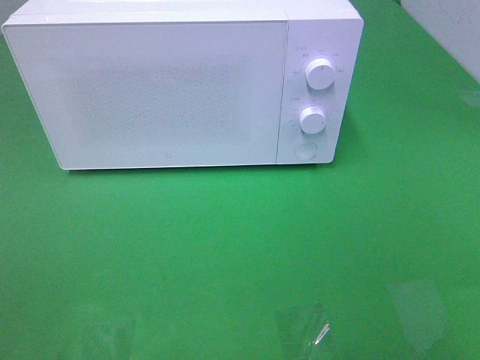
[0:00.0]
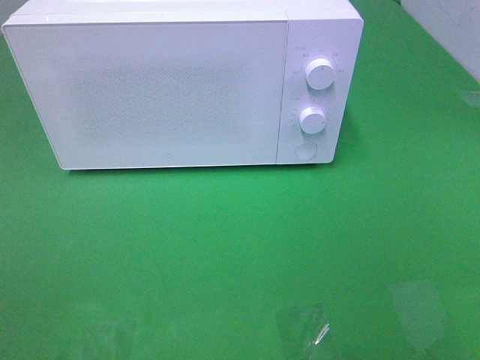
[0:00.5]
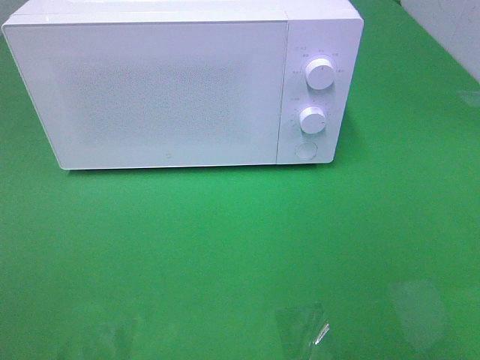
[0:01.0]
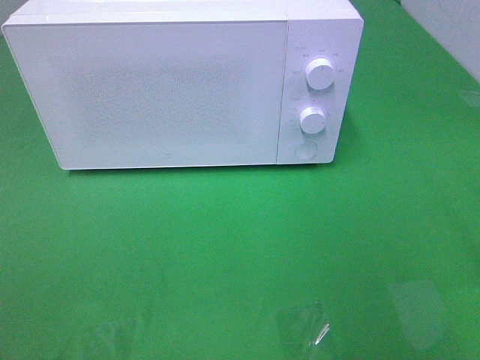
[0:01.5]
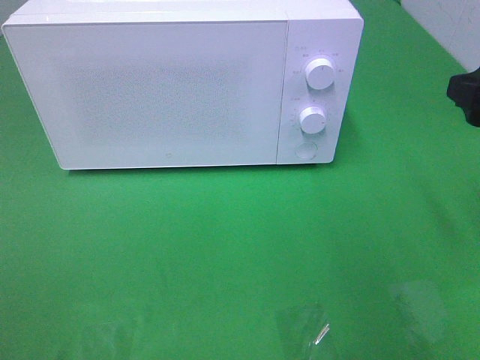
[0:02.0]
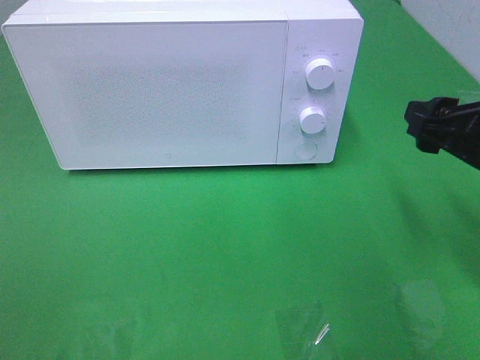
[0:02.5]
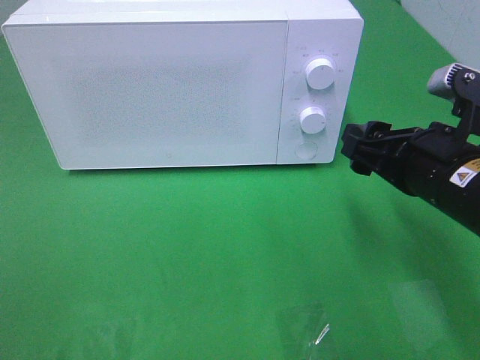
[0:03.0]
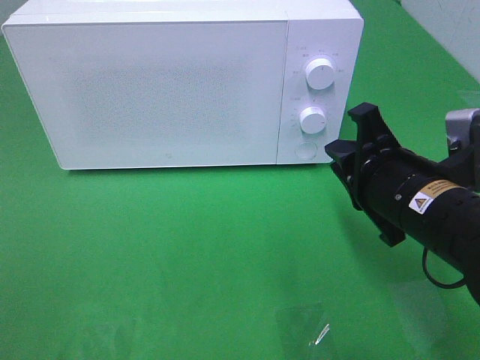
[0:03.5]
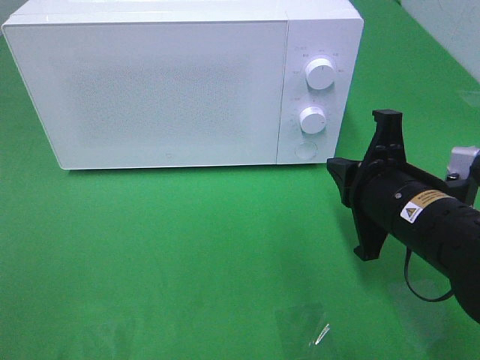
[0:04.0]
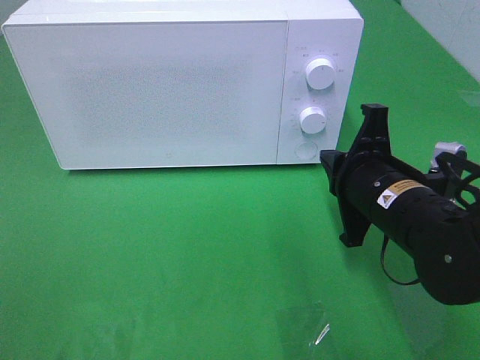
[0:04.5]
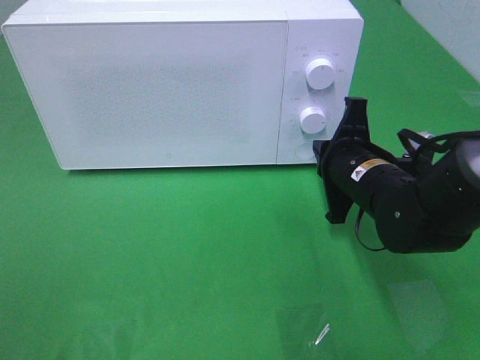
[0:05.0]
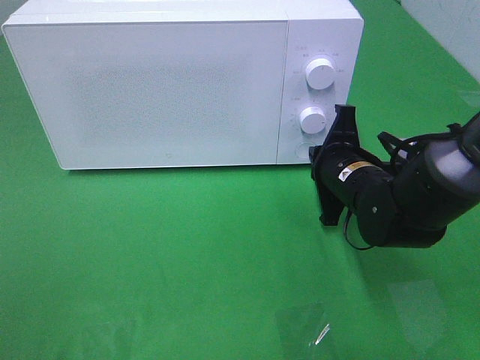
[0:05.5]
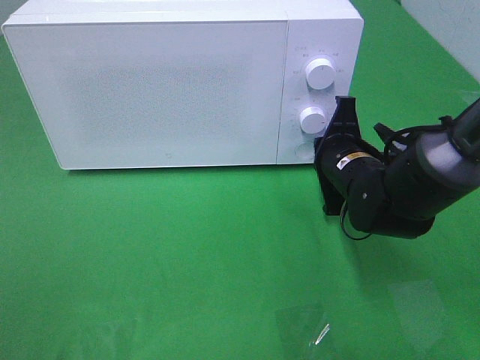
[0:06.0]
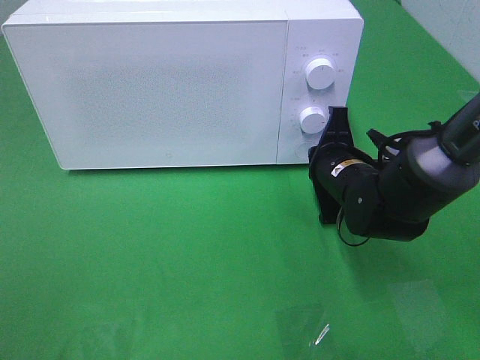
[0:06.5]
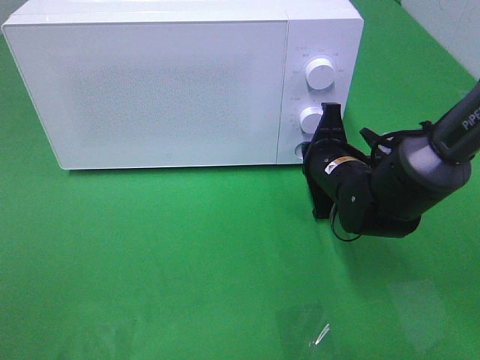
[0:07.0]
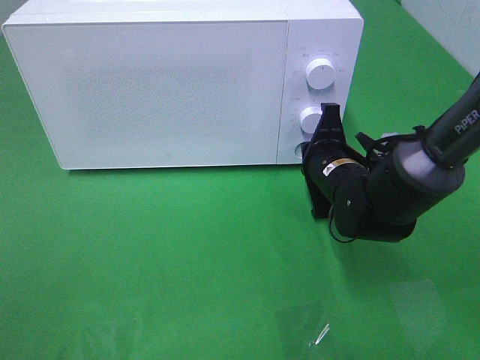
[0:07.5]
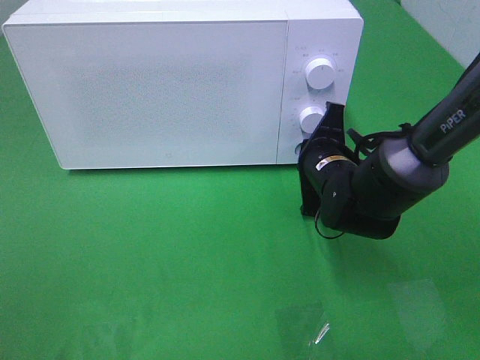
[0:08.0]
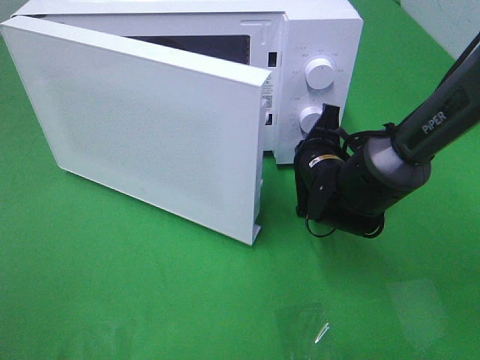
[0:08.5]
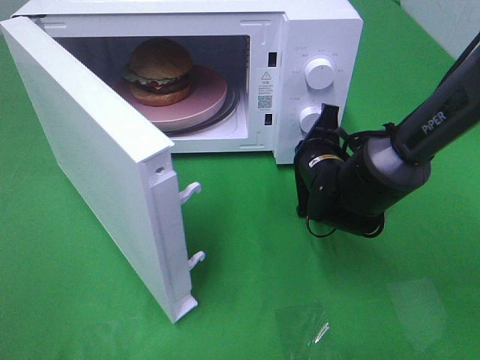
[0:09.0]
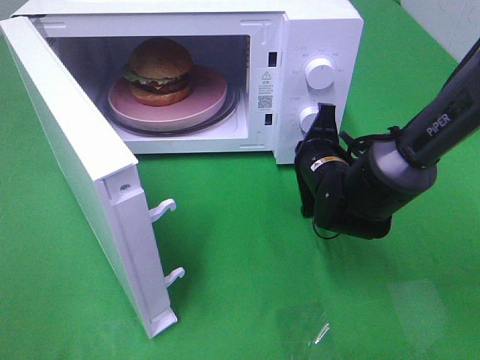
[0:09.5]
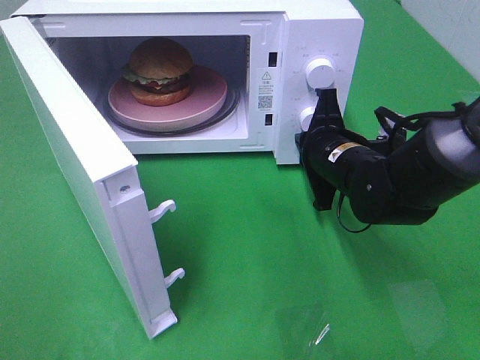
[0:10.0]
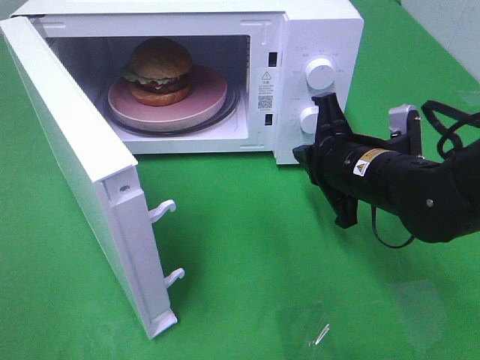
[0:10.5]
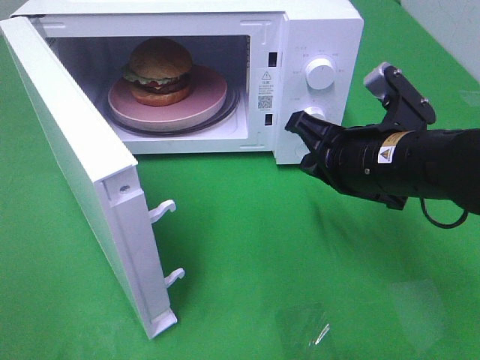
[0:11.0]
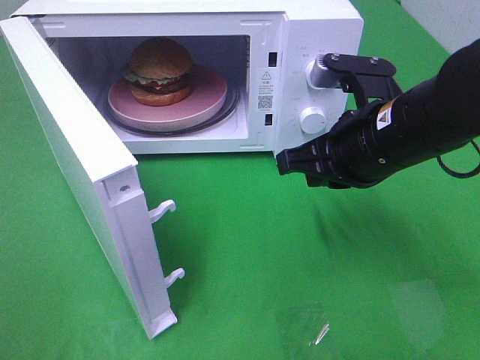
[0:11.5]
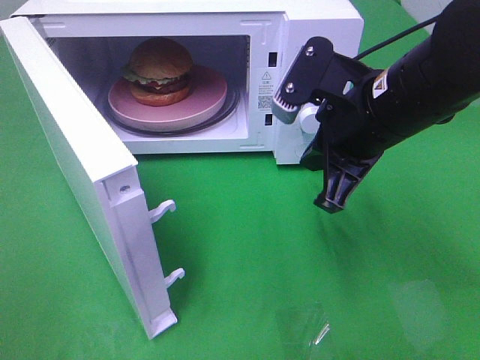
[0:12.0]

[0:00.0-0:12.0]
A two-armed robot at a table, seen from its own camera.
Task of the whole recording: Heat the burger.
Step, 0:00.0 to 0:09.5: Right hand: press the switch.
0:00.0 to 0:02.0: The right gripper moves forward, roughly 20 cm.
0:02.0 to 0:04.0: The right gripper is displaced to the left and downward by about 15 cm, and closes its fingers.
0:04.0 to 0:06.0: The right gripper goes some 10 cm forward.
0:06.0 to 0:08.0: The grippers stay close to where they were, moving slightly.
0:10.0 to 0:12.0: The right gripper shifts about 15 cm upward and backward.

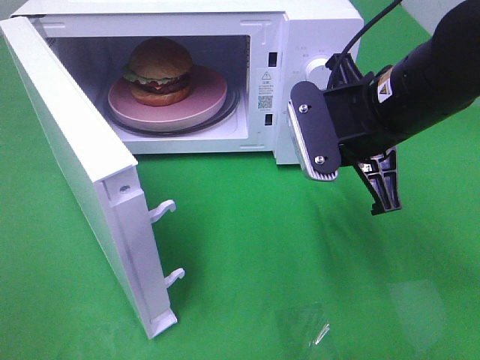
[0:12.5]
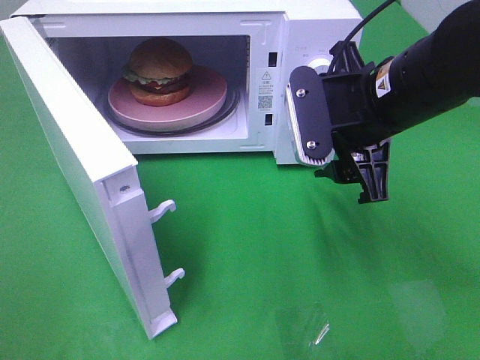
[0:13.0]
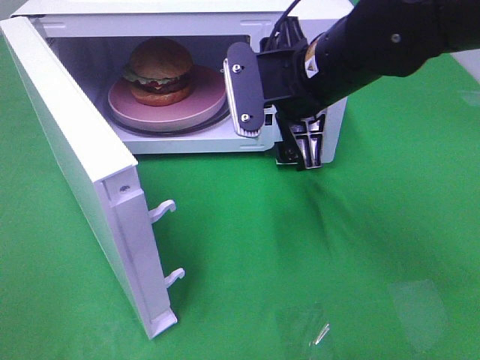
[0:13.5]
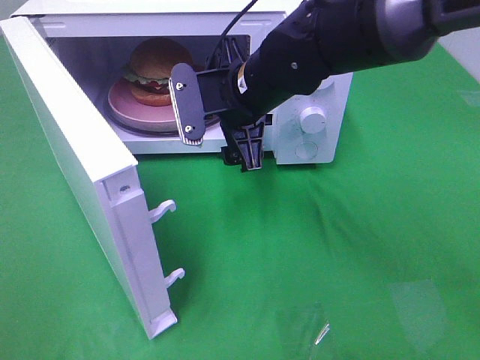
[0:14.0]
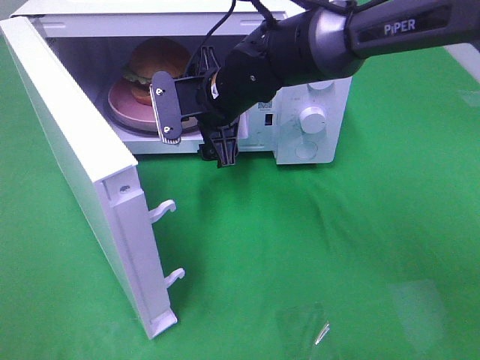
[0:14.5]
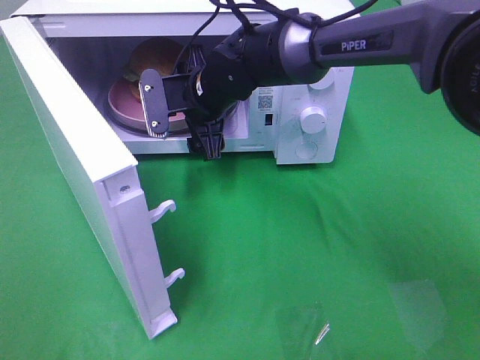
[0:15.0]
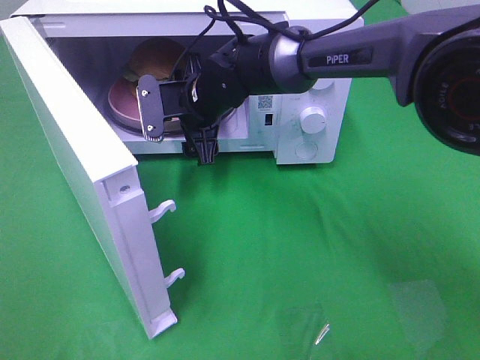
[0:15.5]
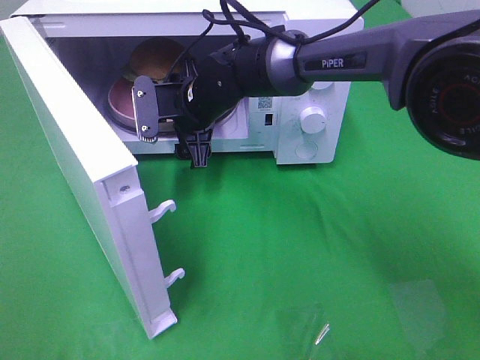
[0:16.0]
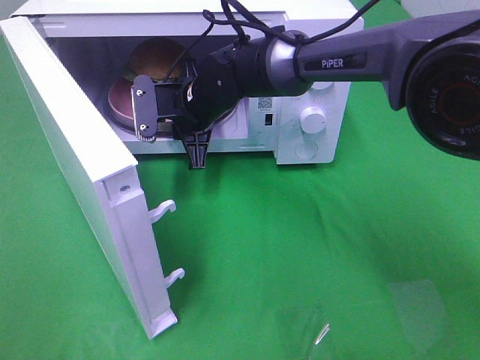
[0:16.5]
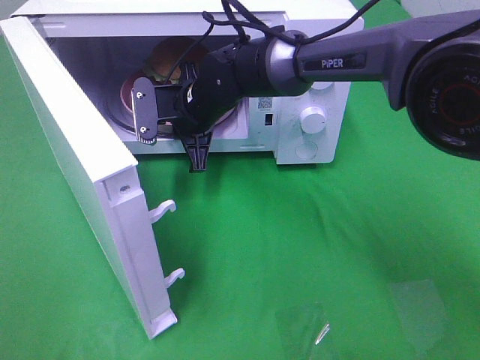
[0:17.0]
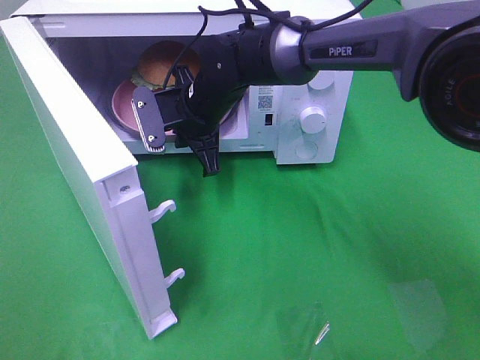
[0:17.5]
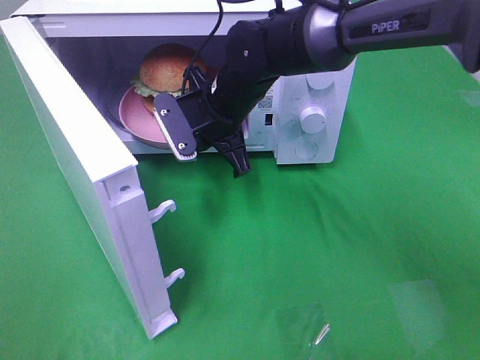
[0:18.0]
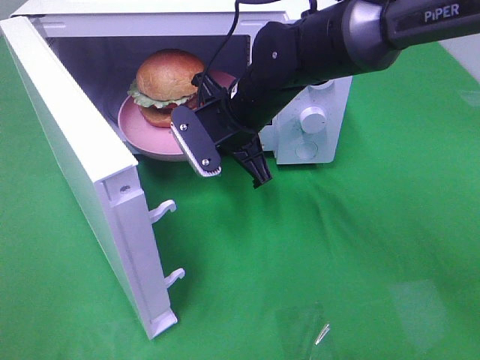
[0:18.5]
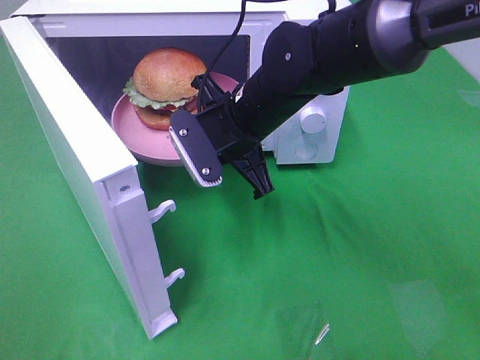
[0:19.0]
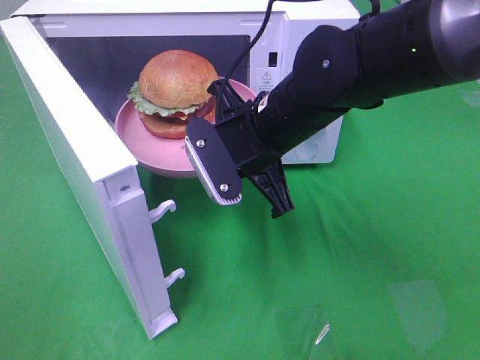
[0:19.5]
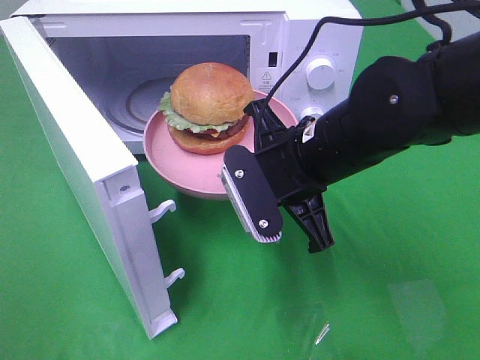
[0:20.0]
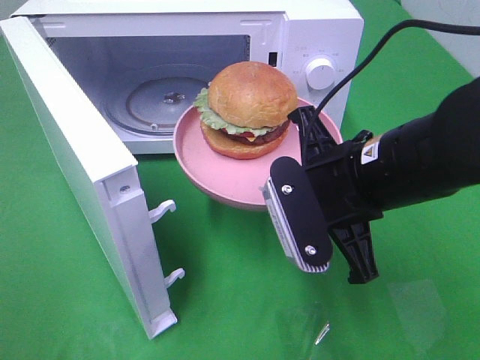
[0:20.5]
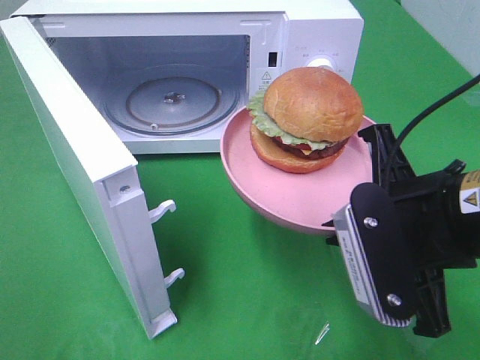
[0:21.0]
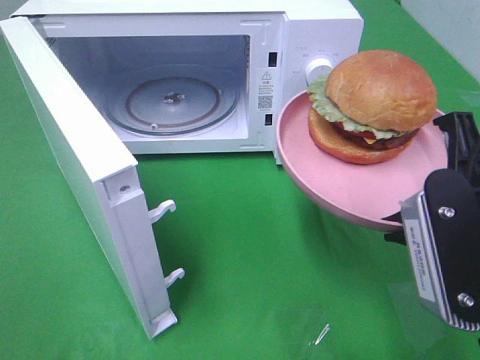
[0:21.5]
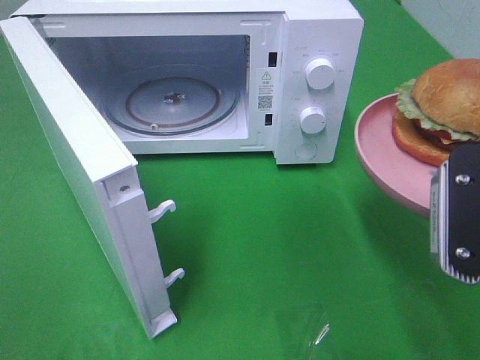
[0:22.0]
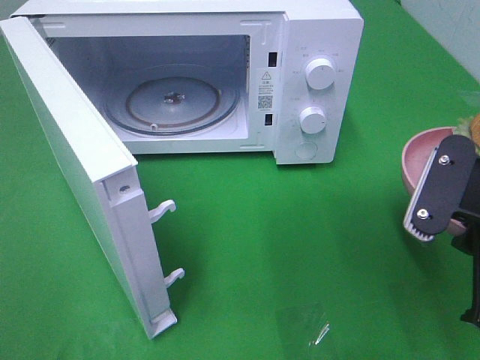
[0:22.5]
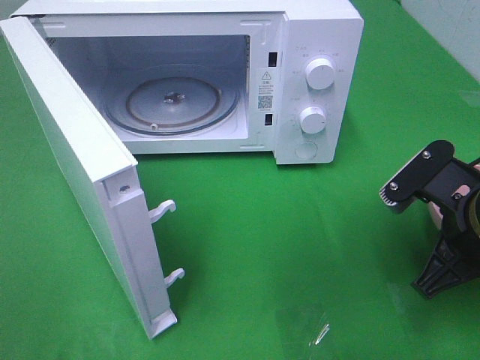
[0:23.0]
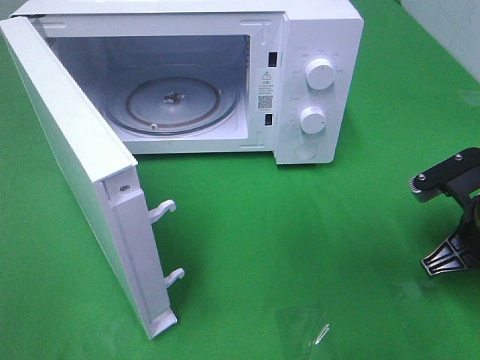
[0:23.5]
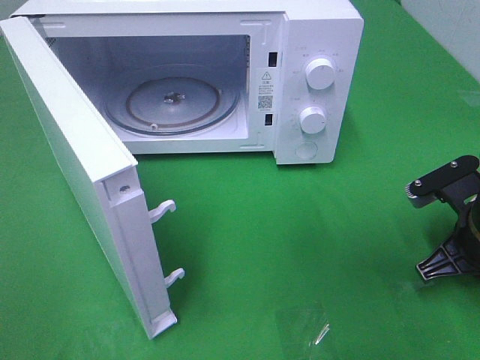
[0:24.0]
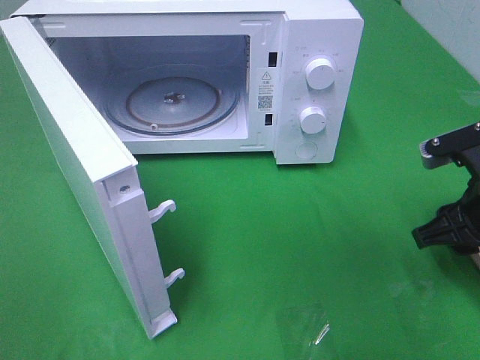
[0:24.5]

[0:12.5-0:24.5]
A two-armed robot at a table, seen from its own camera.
Task of the whole recording: Heat the burger.
Step, 0:12.5 to 0:16.5: Right hand: grab the plate with the hamburger.
Step, 0:17.0 to 0:24.0: Right hand: place the plate on the table.
0:12.5 to 0:14.5: The right gripper moves to the left, forward and downward, about 20 cm, and opens up.
0:14.5 to 0:16.5: The right gripper ends up approximately 5 cm from where it was, and closes up.
0:16.5 to 0:18.5: The right gripper goes approximately 10 cm to the right and backward.
0:18.5 to 0:20.5: The right gripper travels backward and to the right by roughly 20 cm.
0:20.5 to 0:22.5: The right gripper shifts roughly 10 cm to the right and backward.
0:22.5 to 0:24.5: The right gripper shifts approximately 5 cm forward, and opens up.

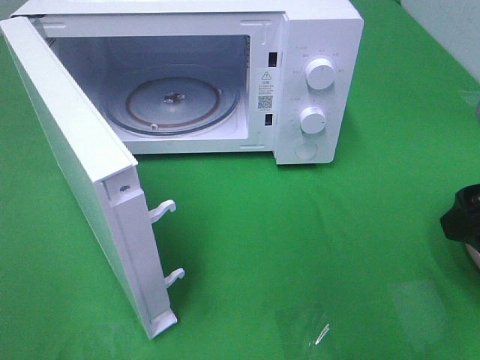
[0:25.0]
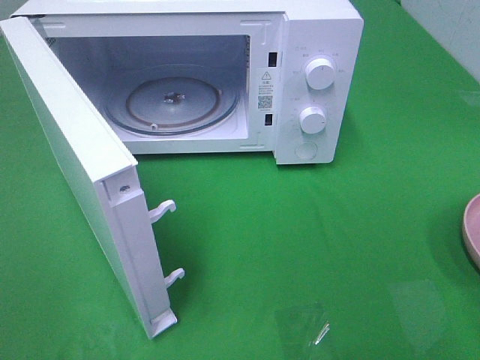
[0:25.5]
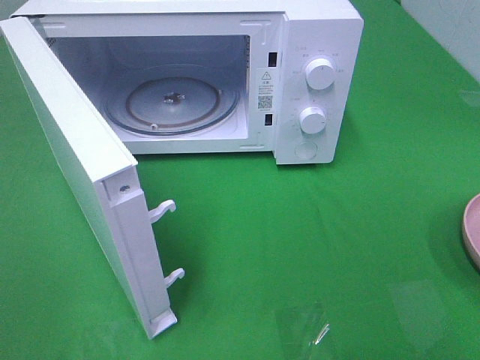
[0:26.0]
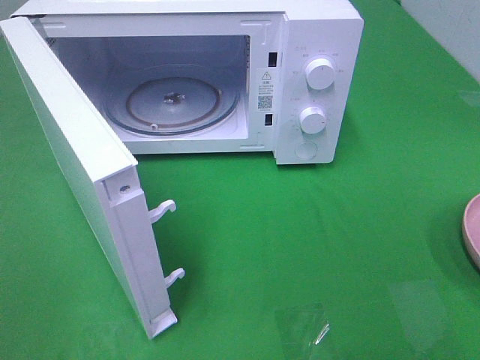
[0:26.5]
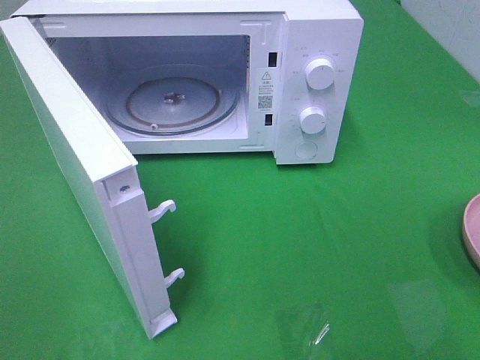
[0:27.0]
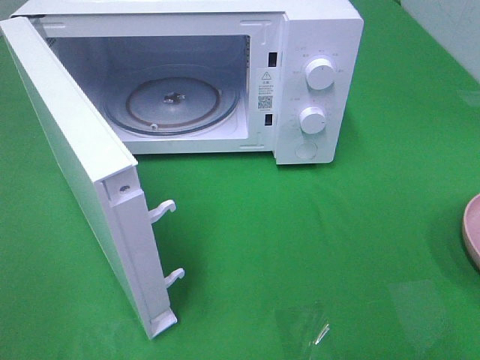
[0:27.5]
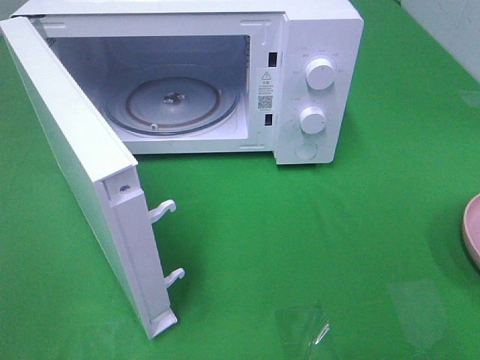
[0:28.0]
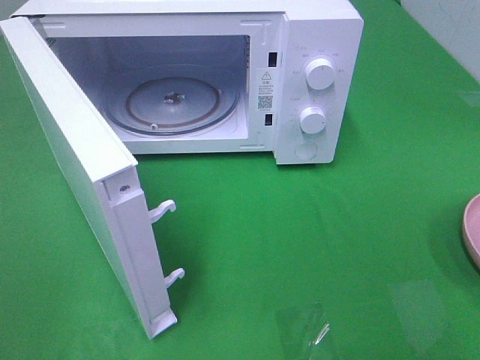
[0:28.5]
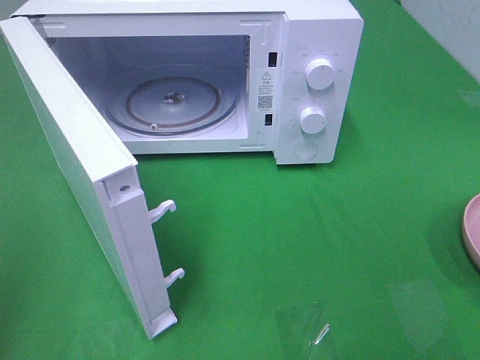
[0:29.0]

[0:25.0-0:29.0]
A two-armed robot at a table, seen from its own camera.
Task of the whole recording: Heat the burger.
0:25.0 to 0:27.0: The right gripper travels backward by roughly 15 cm.
